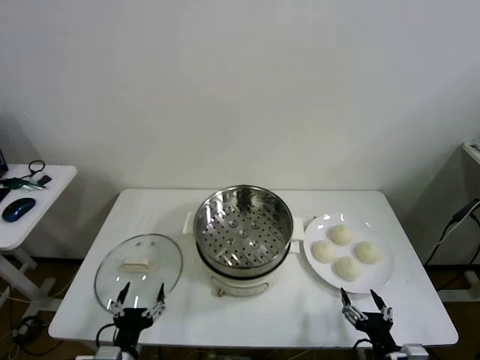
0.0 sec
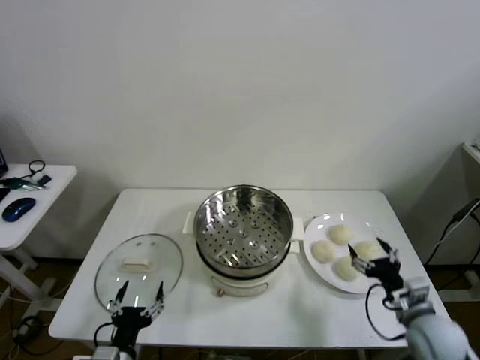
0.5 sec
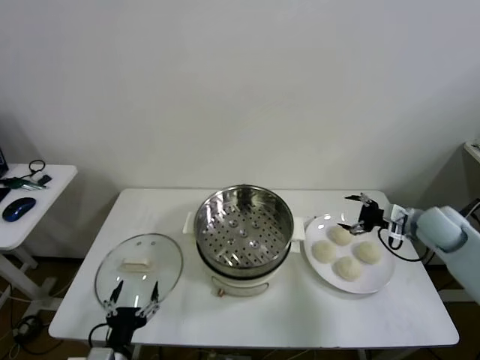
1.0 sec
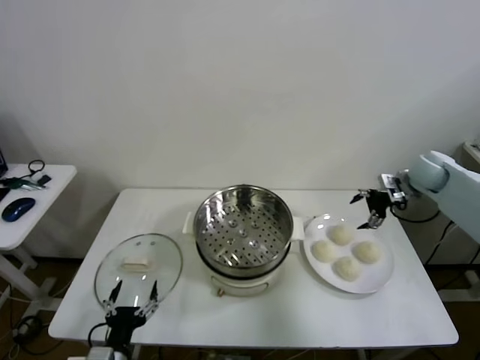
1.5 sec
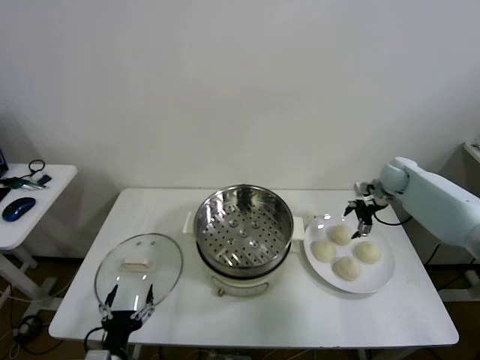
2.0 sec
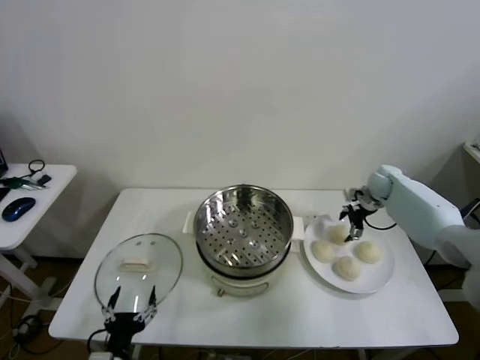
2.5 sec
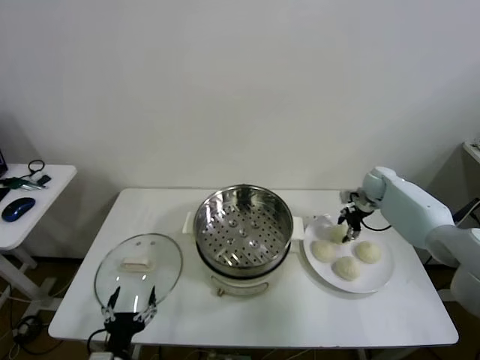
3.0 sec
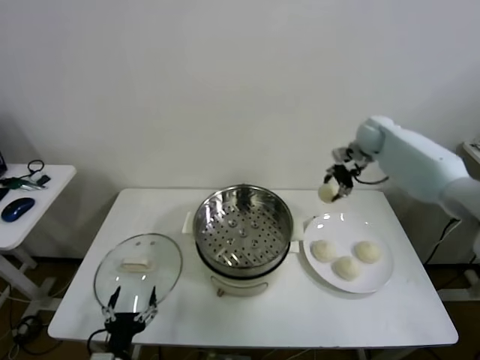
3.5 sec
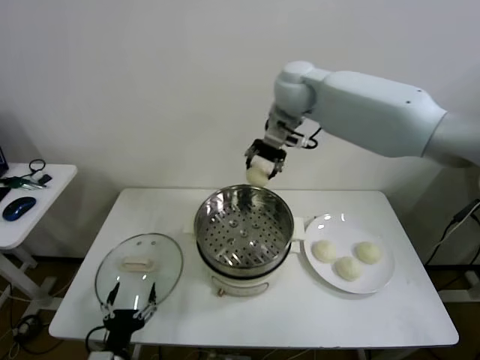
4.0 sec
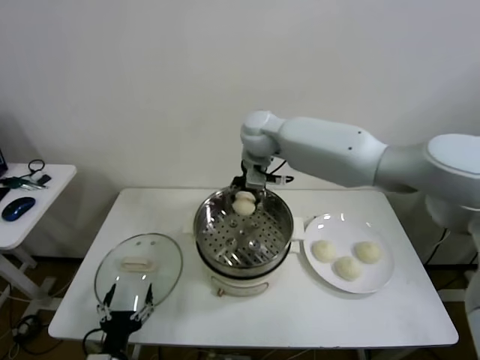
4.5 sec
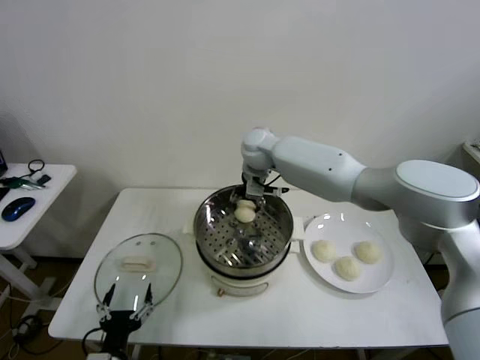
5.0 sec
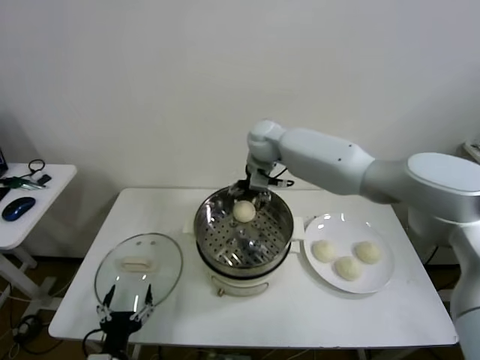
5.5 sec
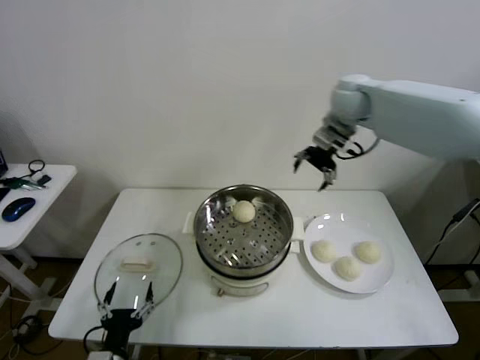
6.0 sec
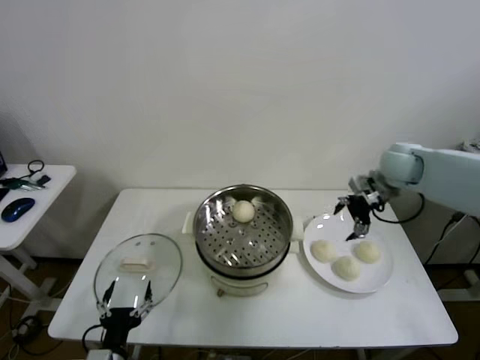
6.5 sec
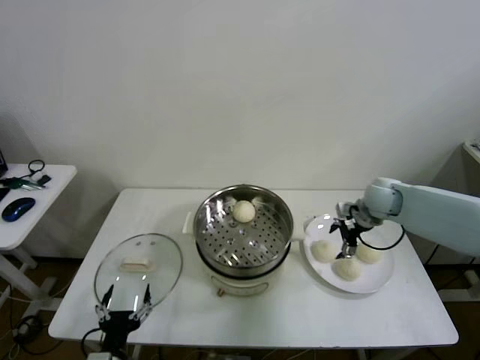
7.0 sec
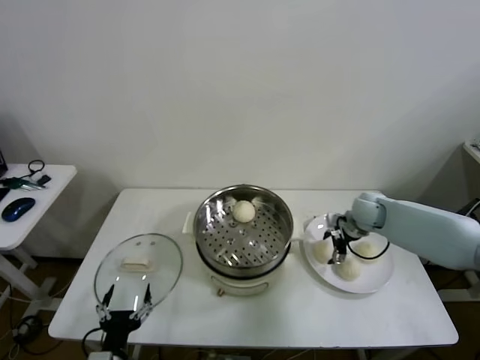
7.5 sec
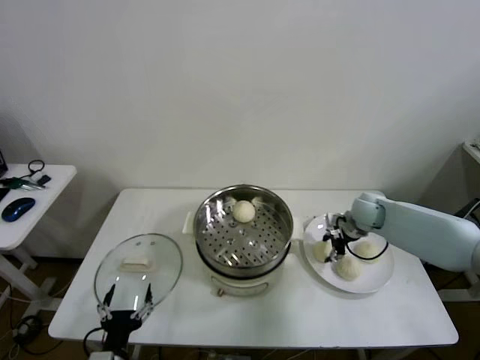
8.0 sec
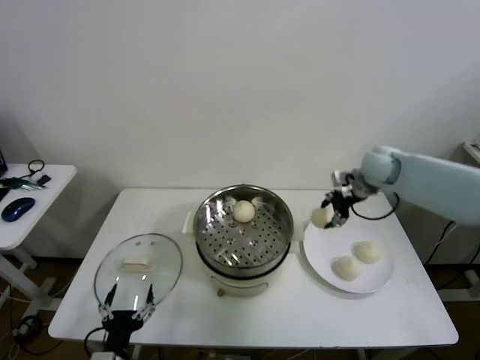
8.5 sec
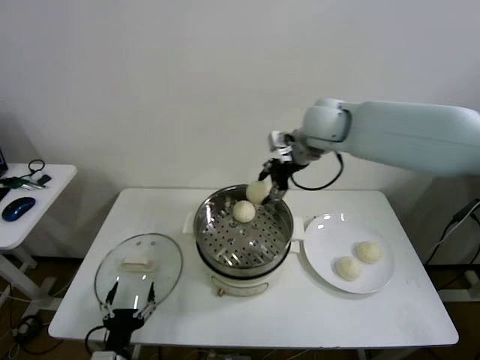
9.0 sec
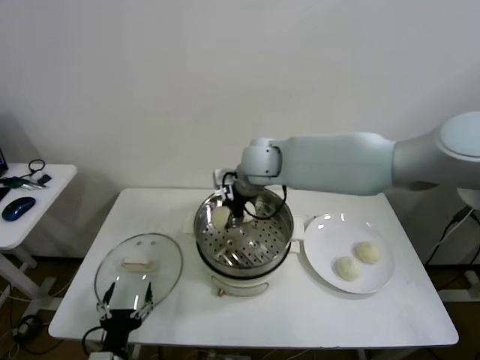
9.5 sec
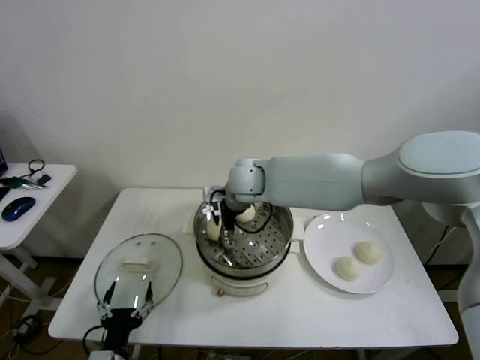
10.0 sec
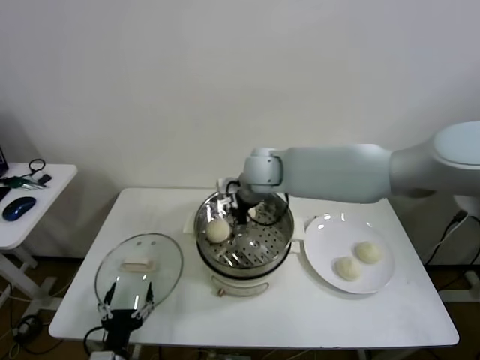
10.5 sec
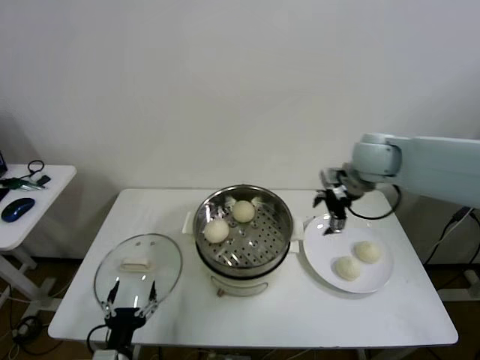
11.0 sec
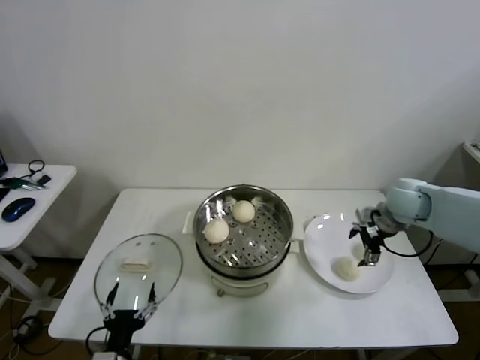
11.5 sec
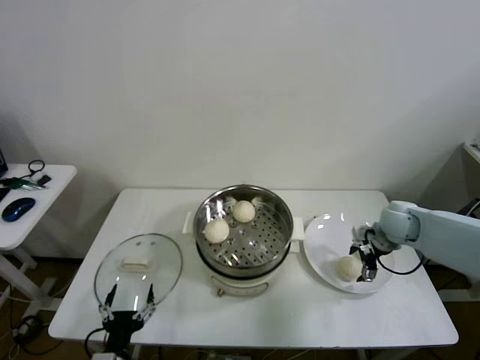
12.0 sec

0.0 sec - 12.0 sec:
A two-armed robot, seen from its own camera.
Step, 0.0 sec - 2.5 sec: Grasp the baozi in the plate with right gripper.
Step, 3.5 sec - 5.0 sec: Place the baozi on the steamer with right gripper.
Step, 5.5 sec - 7.5 sec: Grasp the baozi in the plate with right gripper.
Step, 8.5 sec - 10.0 sec: Place the baozi on the steamer with right gripper.
2.0 sec - 4.0 sec: The right gripper travels to the left and upward by about 40 cm, and closes up.
4.0 sec - 6.0 sec: The right gripper heads to the right, covering roughly 20 cm, and opens.
6.0 sec - 8.0 sec: The right gripper is displaced downward by about 25 cm, and closes its fingers.
8.0 sec - 10.0 sec: The right gripper moves to the left, some 30 cm, and opens its fingers.
10.0 sec - 12.0 sec: The right gripper travels to the right by some 35 cm, and opens up.

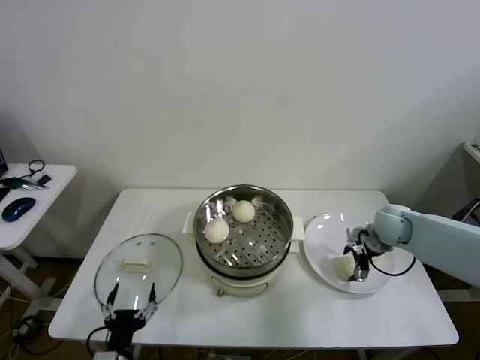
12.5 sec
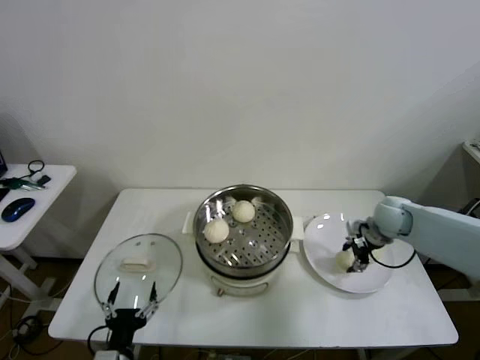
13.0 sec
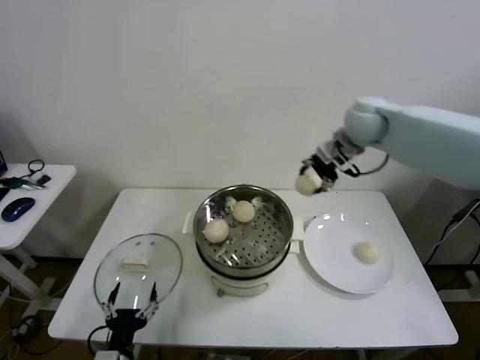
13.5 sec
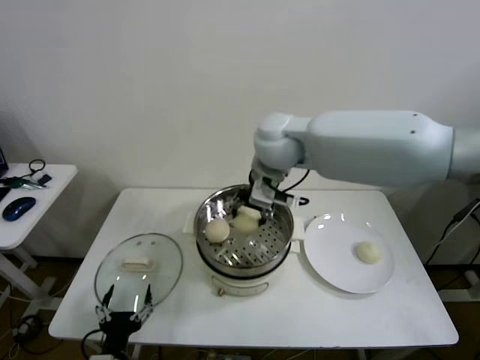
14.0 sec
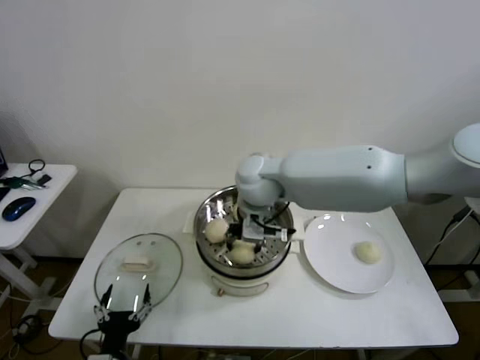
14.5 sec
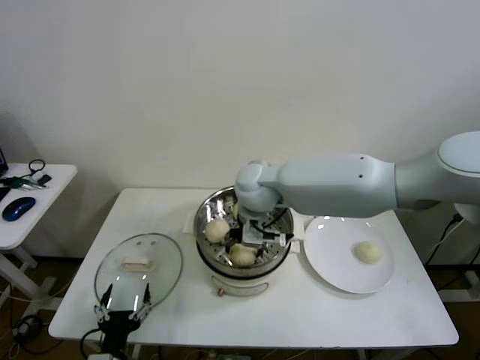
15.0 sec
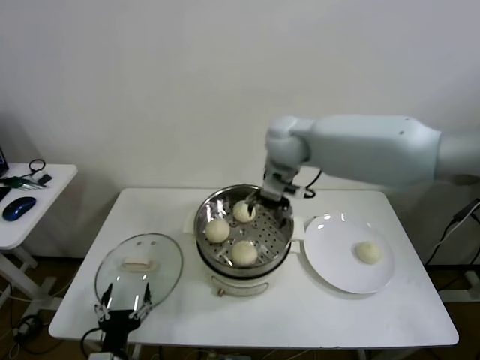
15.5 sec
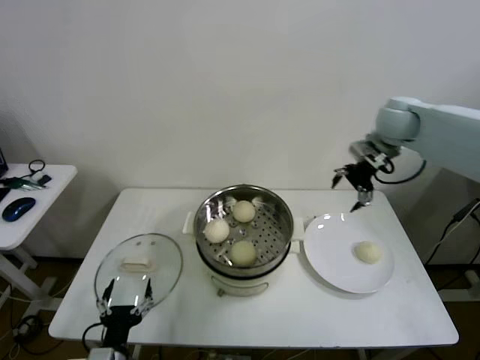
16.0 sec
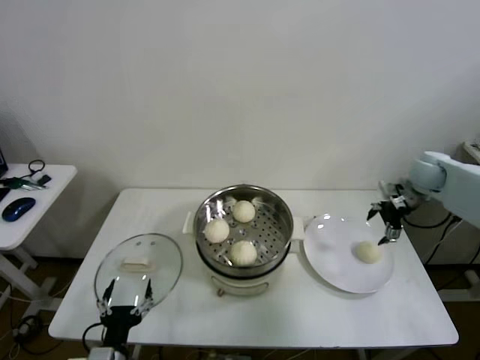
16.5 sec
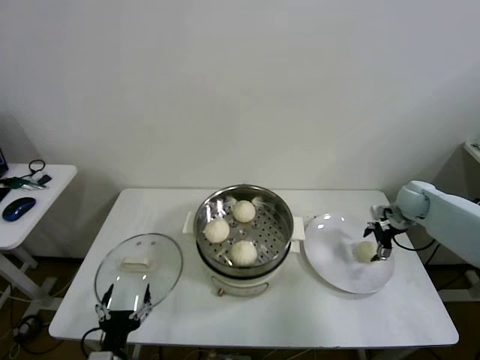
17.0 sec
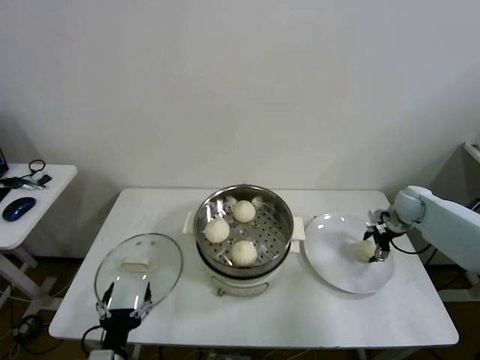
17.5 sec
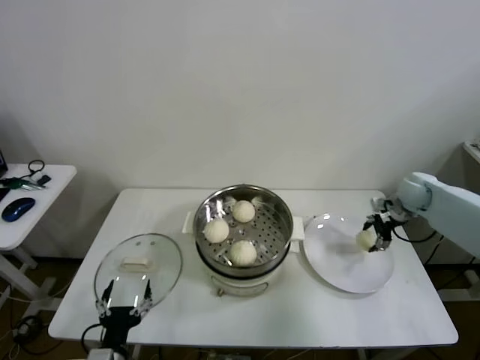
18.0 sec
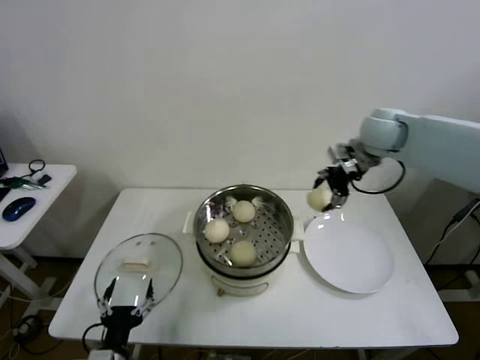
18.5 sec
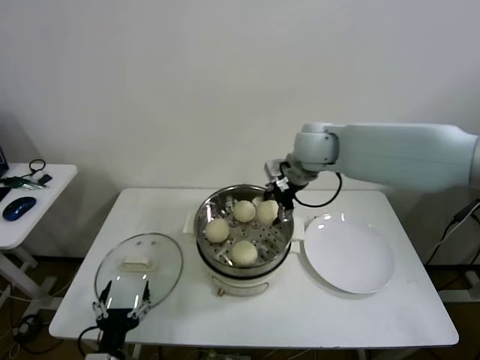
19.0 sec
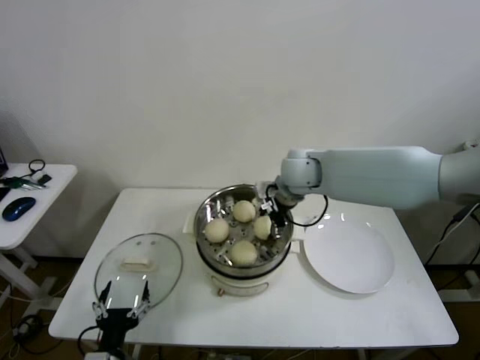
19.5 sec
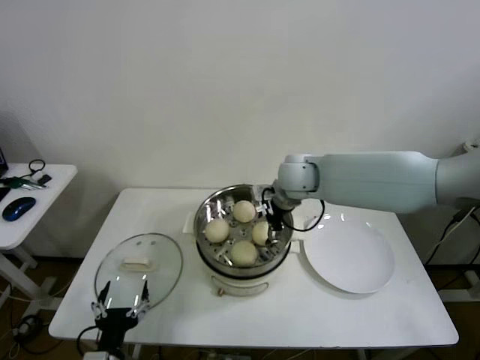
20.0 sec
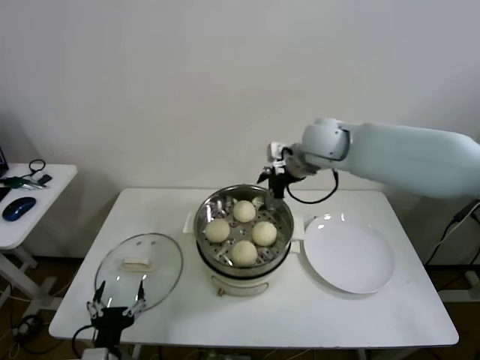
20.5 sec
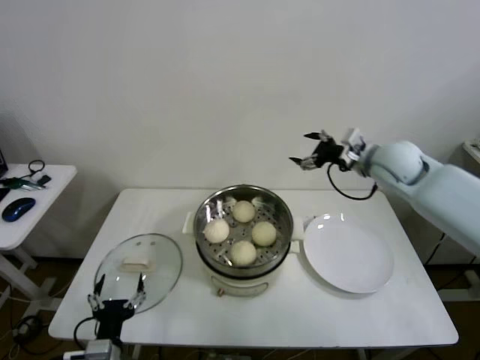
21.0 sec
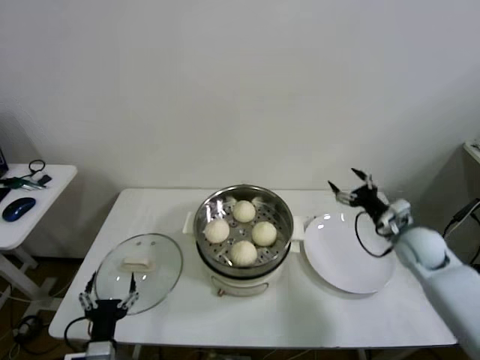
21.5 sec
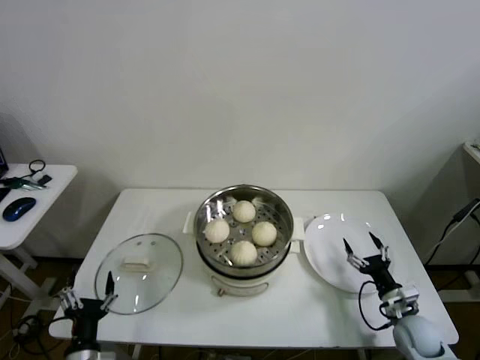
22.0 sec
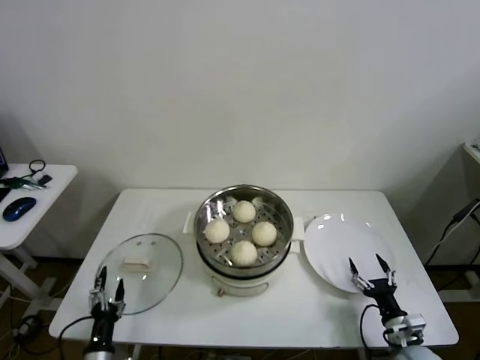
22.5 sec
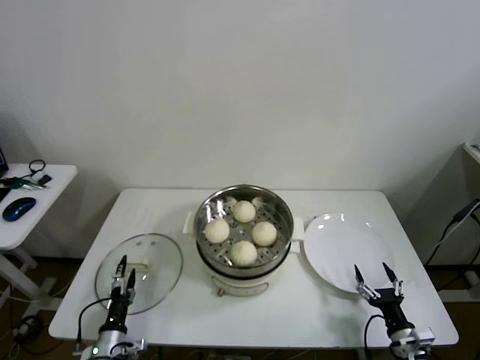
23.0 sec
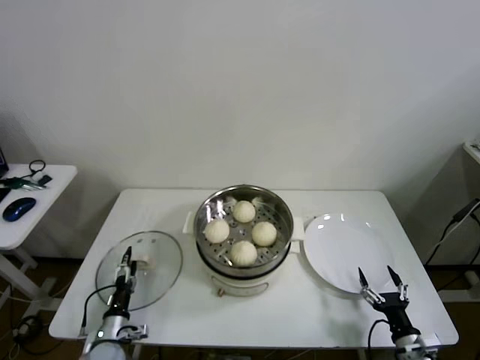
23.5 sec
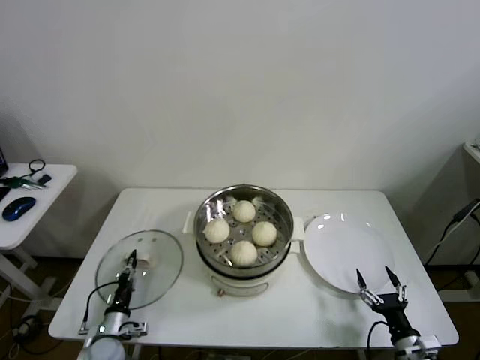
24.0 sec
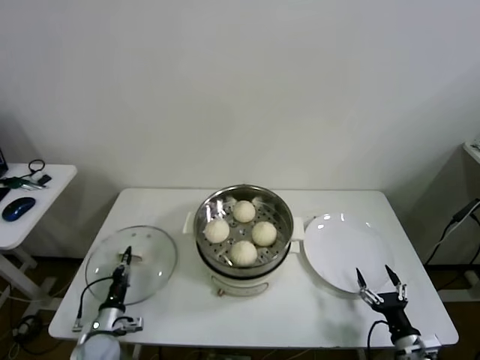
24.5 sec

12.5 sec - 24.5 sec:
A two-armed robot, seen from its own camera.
Step, 13.0 sec - 15.0 sec: Place the baozi on the steamer with right gripper.
Step, 15.5 sec - 17.5 sec: Grasp the baozi in the plate with right gripper.
Step, 18.0 sec - 19.5 sec: Place the baozi on the steamer with right gripper.
Step, 20.0 sec - 24.0 sec: Grasp the pot lid with left gripper.
12.5 sec - 14.5 sec: The right gripper goes roughly 40 cm to the left and upward, and closes up.
14.5 sec - 16.5 sec: The right gripper shifts roughly 40 cm to the right, and opens its fingers.
16.5 sec - 18.5 sec: The right gripper travels to the left and upward by some 20 cm, and closes up.
18.5 sec - 20.5 sec: The right gripper goes some 10 cm to the left, and opens.
20.5 sec - 22.5 sec: The right gripper is displaced downward, backward and to the right by about 60 cm. Meanwhile the left gripper shifts roughly 10 cm downward and to the left.
22.5 sec - 24.5 sec: The right gripper moves approximately 5 cm. The left gripper travels forward by approximately 10 cm, and closes up.

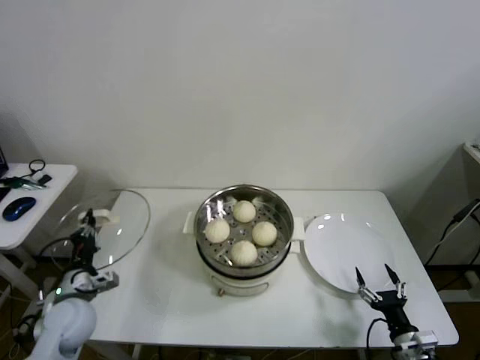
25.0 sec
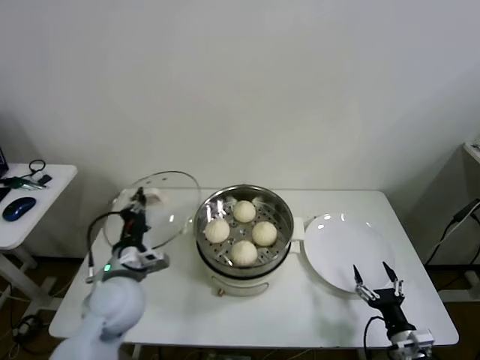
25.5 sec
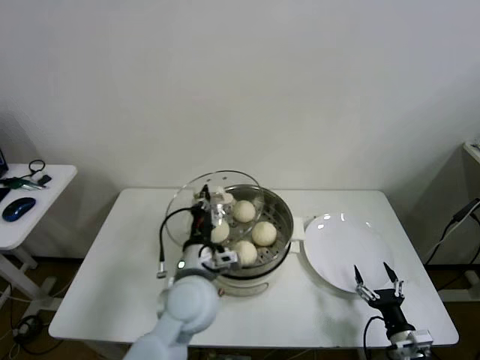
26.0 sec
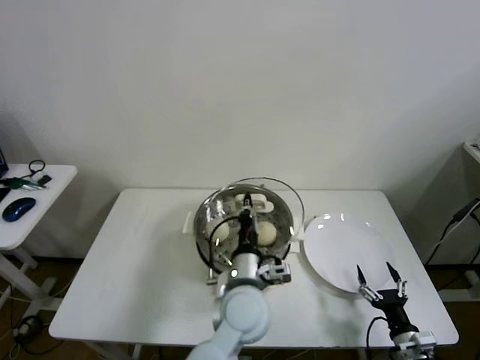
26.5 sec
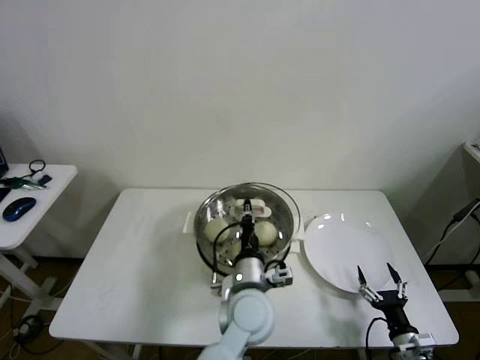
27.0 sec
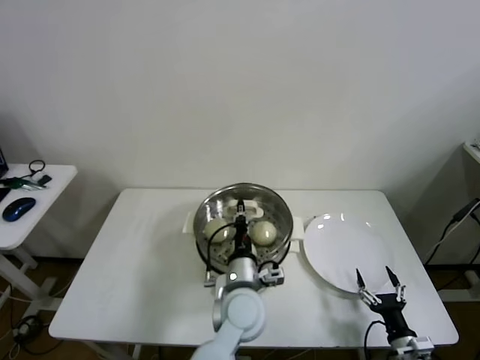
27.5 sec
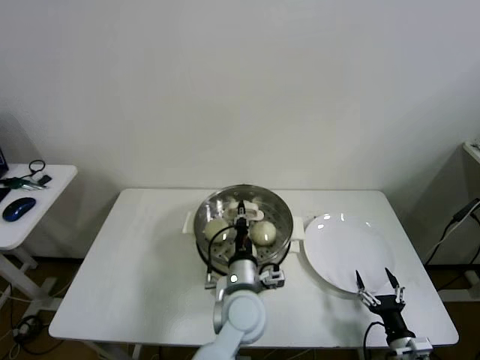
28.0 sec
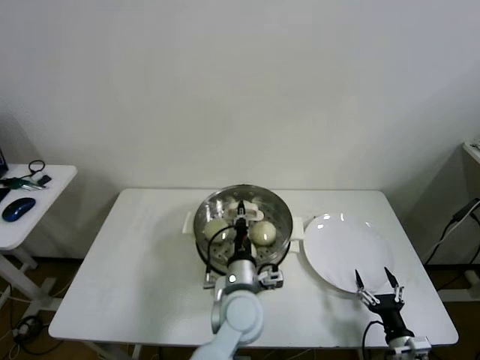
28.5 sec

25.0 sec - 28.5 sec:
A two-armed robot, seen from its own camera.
25.0 sec - 27.0 sec: The left gripper shifts roughly 40 cm to the right.
27.0 sec - 28.5 sec: The grippers make only small movements.
